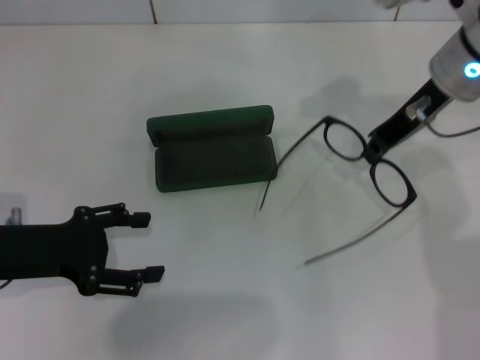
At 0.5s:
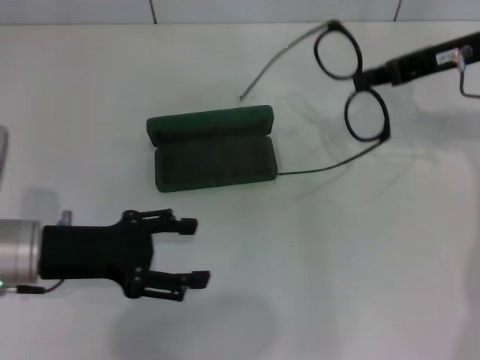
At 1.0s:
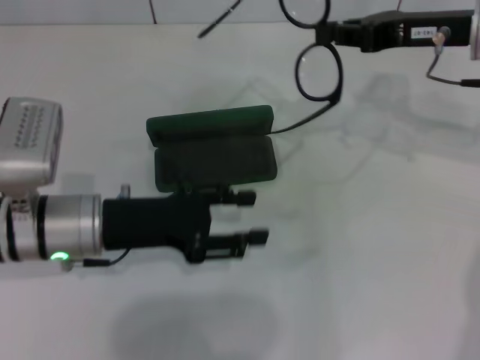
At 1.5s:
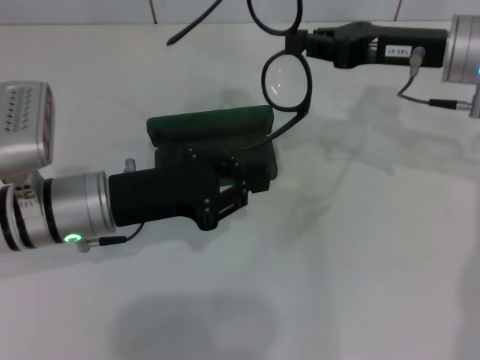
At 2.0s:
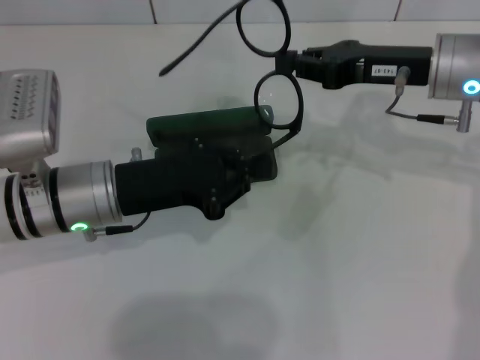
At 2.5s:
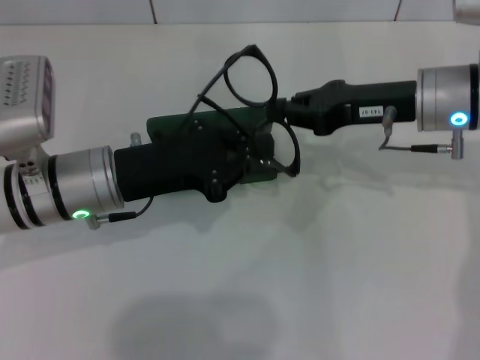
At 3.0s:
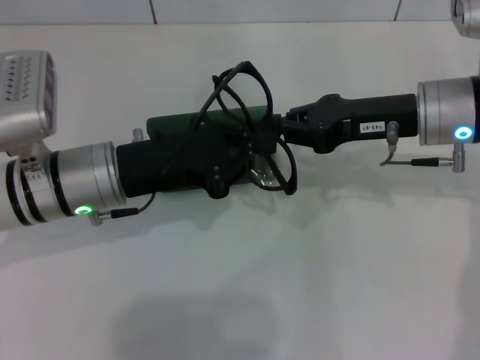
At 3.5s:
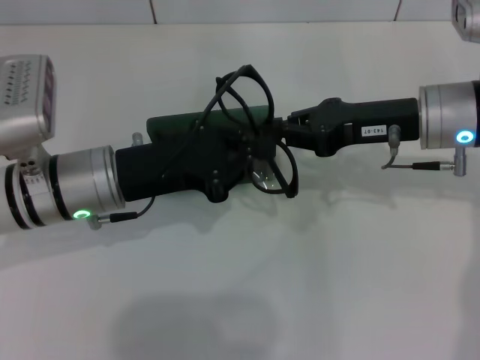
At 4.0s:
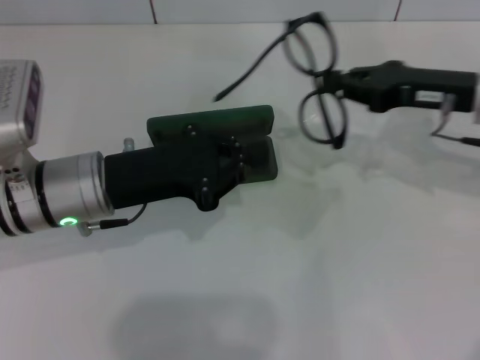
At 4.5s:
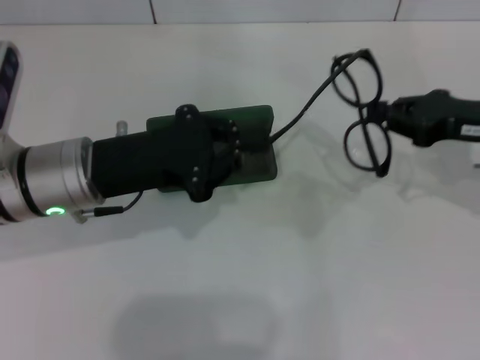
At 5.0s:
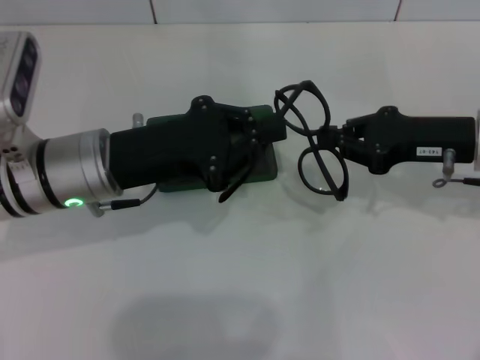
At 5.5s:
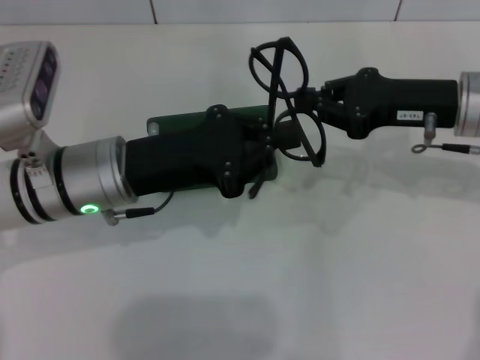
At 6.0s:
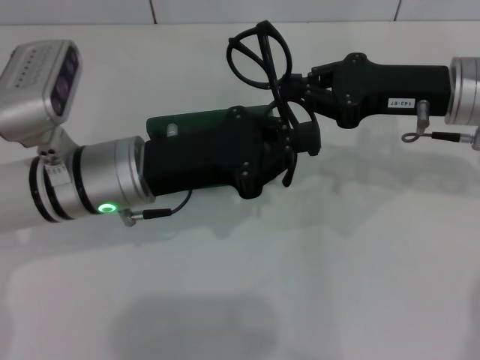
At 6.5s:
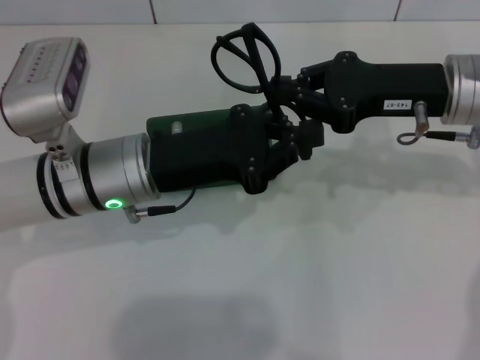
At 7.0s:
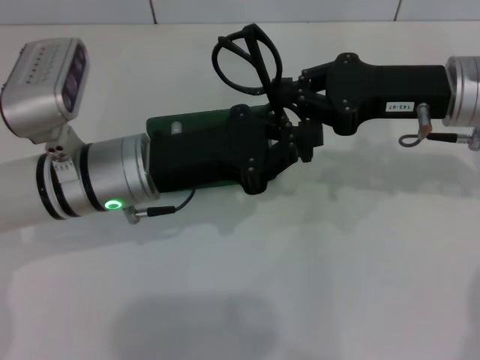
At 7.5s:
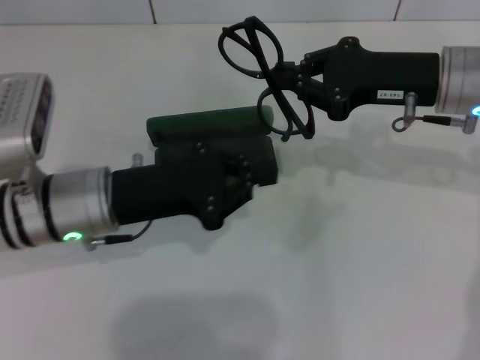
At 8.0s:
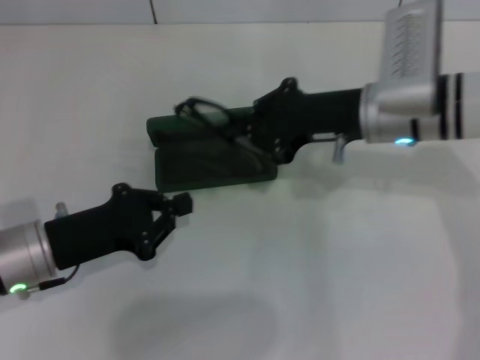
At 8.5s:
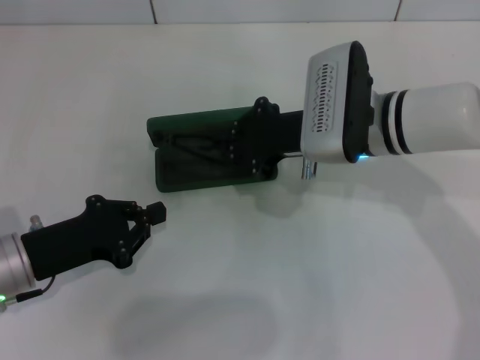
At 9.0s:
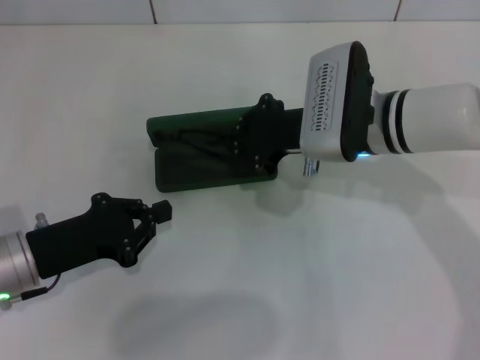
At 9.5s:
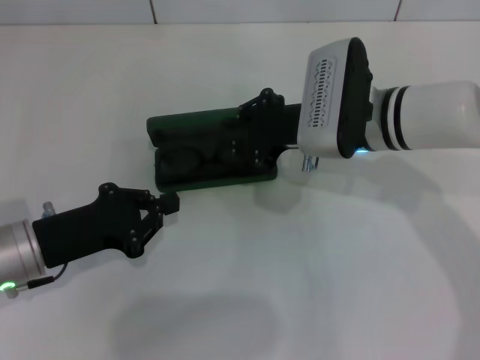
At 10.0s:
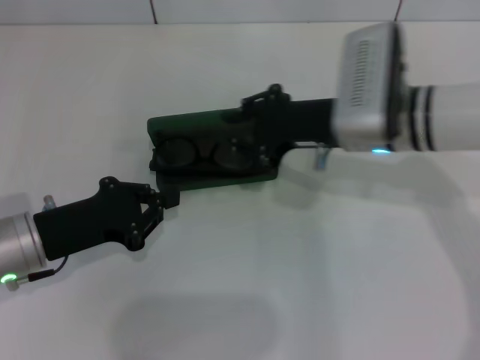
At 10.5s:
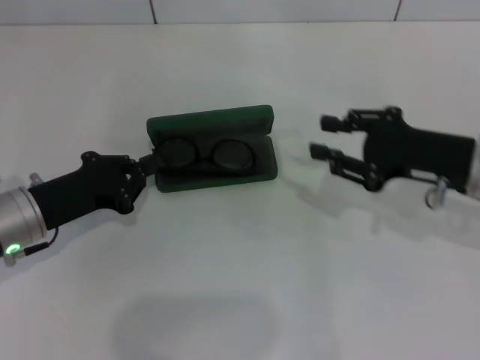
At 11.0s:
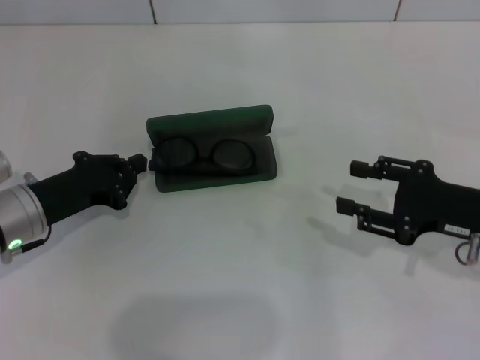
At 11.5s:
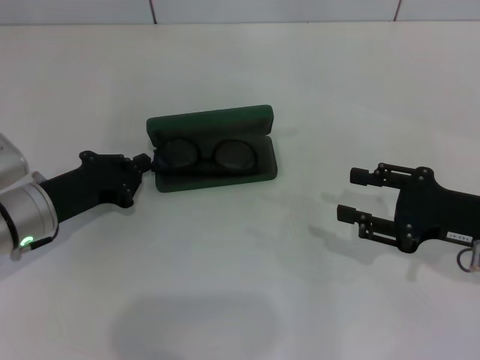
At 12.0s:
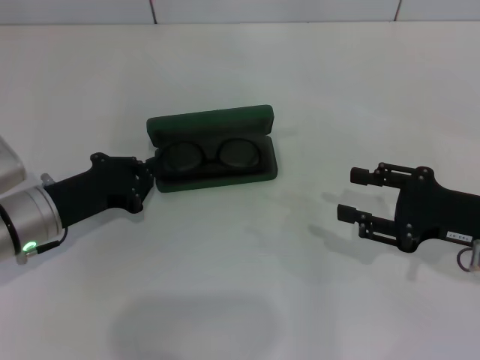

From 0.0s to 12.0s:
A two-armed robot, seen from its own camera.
Step, from 0.0s to 6.0s: Fold the frame with your left hand.
From 0.0s to 2.0s: The left gripper travels to the right by approximately 10 cm, and closes its fingers.
From 2.0s to 4.0s: The right gripper shifts by about 5 cm.
From 4.0s to 6.0s: The grippers make only small movements.
From 6.0s to 8.0s: The right gripper is displaced to the left by about 5 cm. Meanwhile the left gripper travels to the left, downward and backward by some 15 cm.
From 8.0s to 10.0s: The grippers stay close to where they were, moving slightly.
From 10.0s to 12.0s: The right gripper travels to the right and backward by some 20 cm.

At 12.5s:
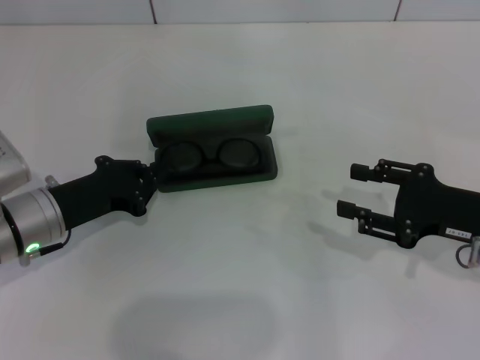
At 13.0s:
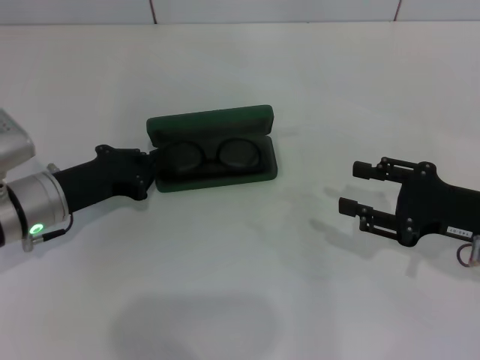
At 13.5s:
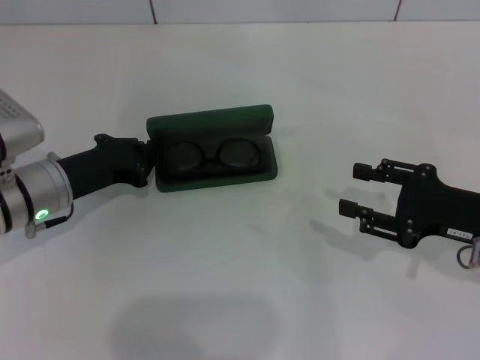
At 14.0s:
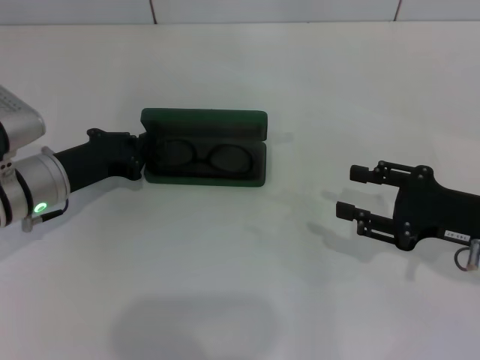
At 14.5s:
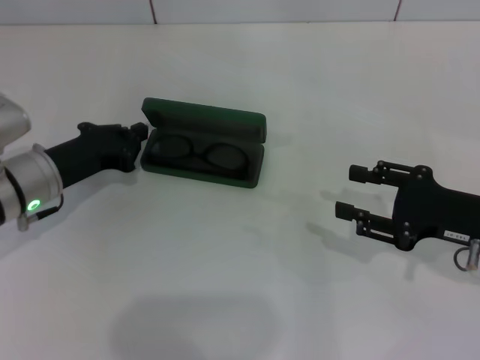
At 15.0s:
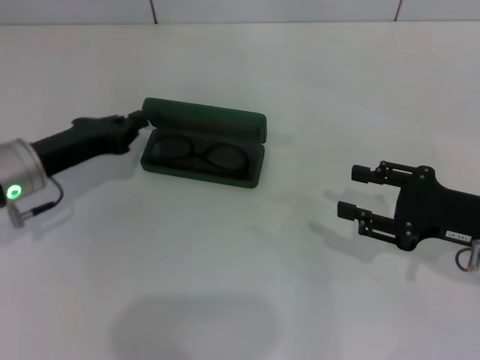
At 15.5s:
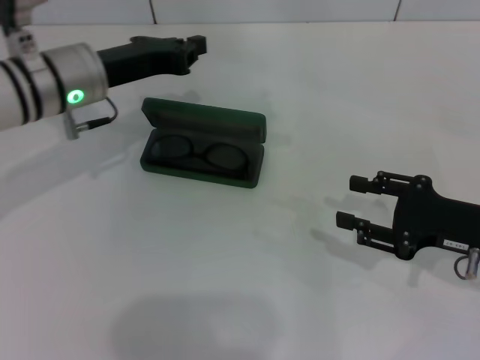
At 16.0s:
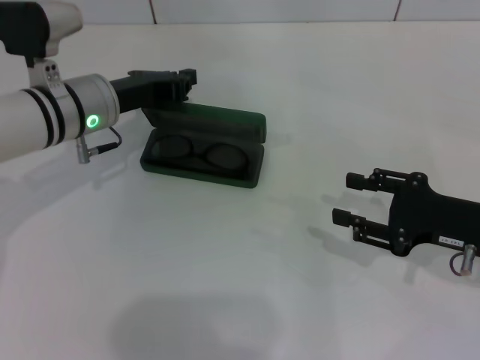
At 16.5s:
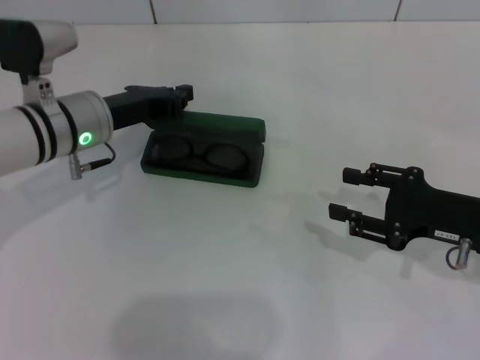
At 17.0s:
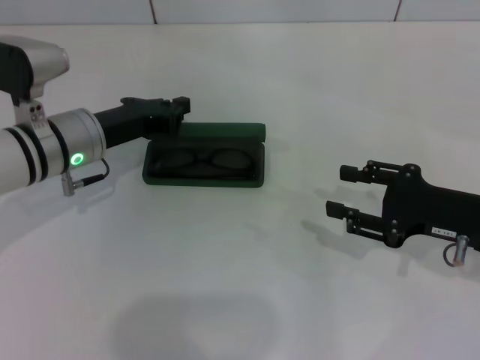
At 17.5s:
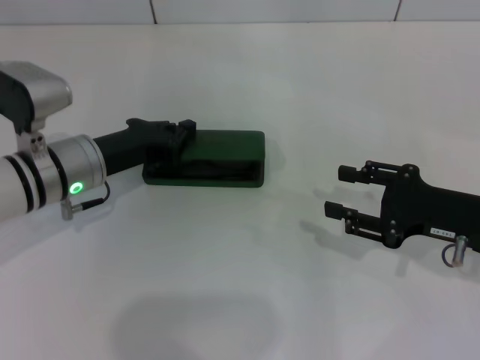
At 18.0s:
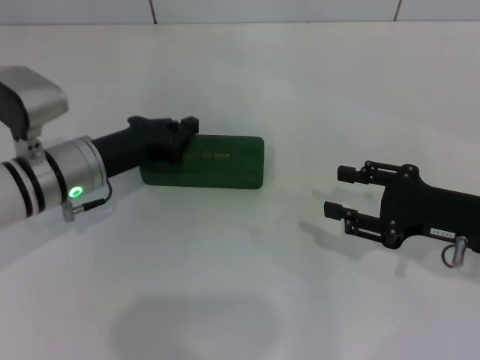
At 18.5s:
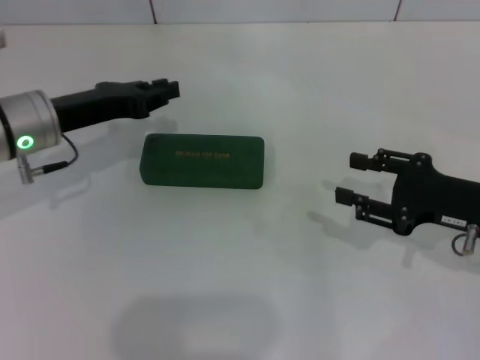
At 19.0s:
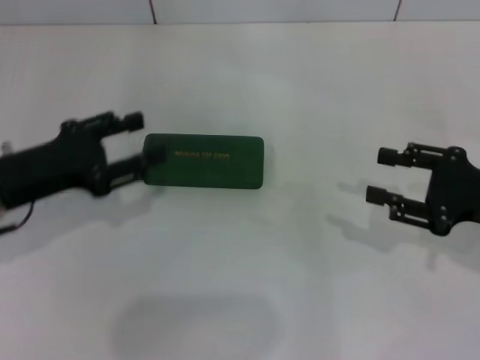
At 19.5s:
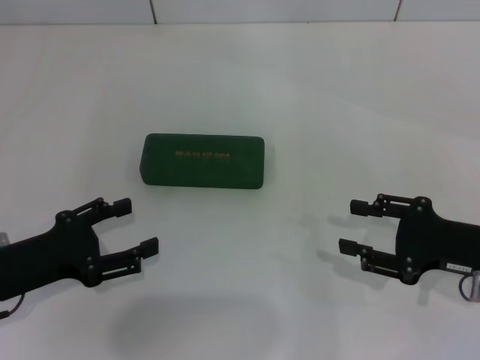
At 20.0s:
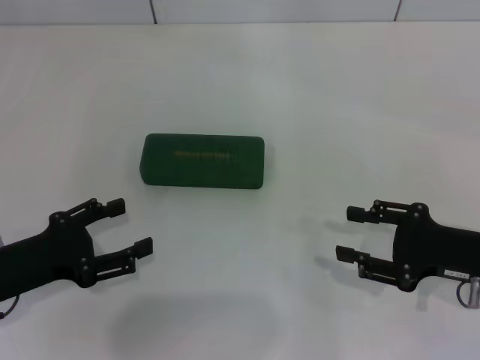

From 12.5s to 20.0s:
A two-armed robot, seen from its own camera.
Step, from 15.0s to 18.0s: Close the glasses case with your left hand.
From 12.5s to 14.5s: The grippers move only a little.
From 14.5s to 16.5s: The left gripper moves to the right, approximately 5 cm.
From 16.5s to 18.0s: The left gripper moves approximately 5 cm.
From 18.0s to 20.0s: The left gripper is displaced backward and to the left by roughly 15 cm, and opens.
